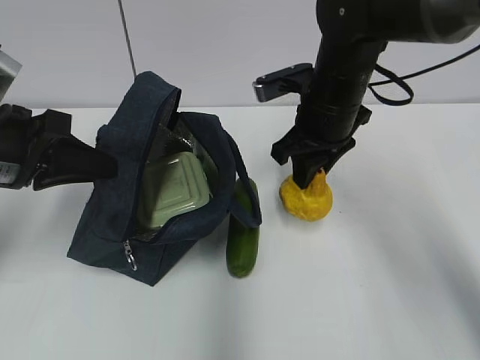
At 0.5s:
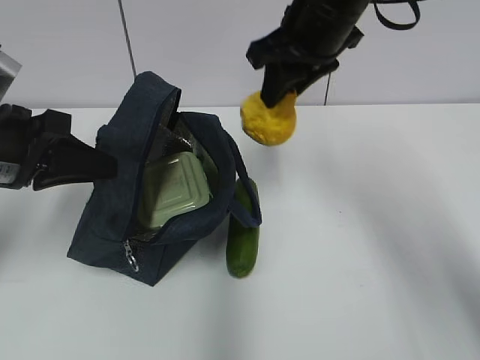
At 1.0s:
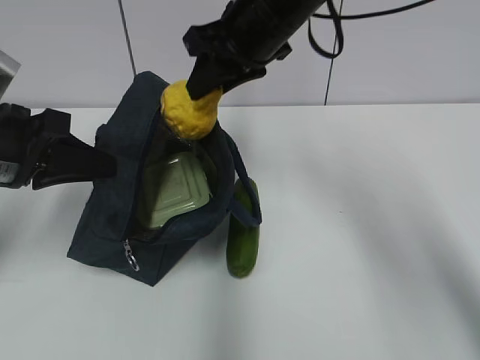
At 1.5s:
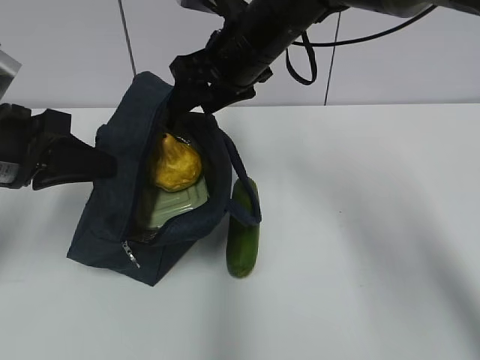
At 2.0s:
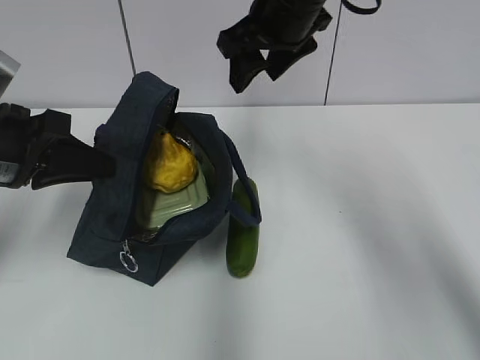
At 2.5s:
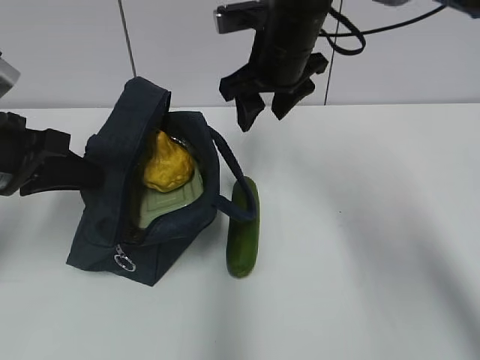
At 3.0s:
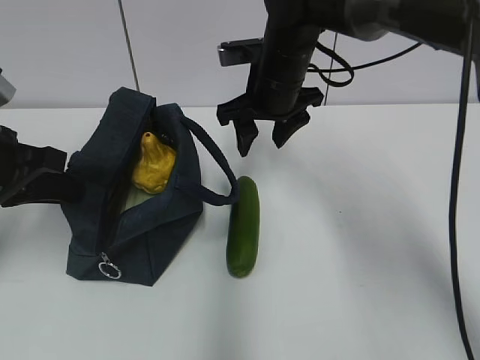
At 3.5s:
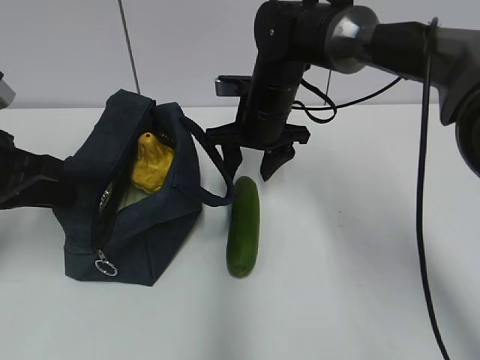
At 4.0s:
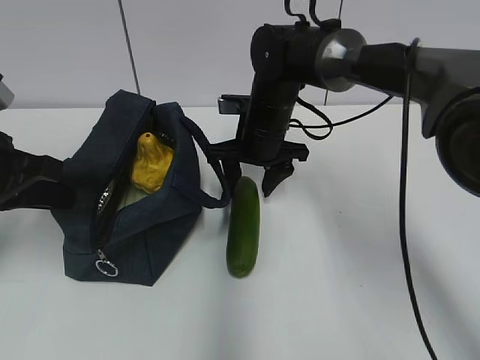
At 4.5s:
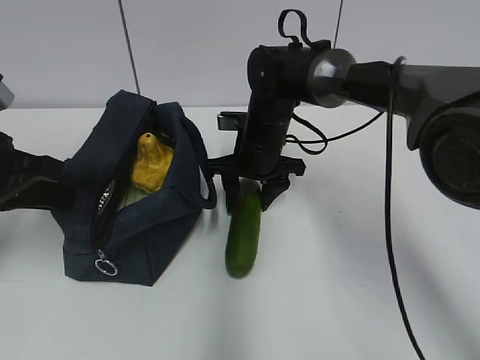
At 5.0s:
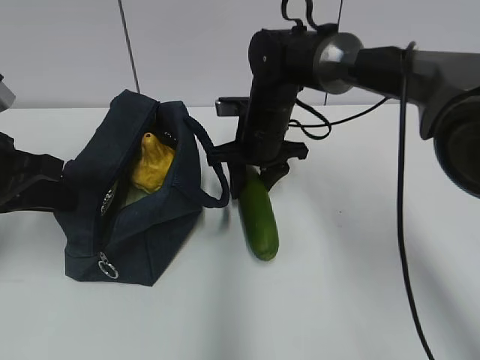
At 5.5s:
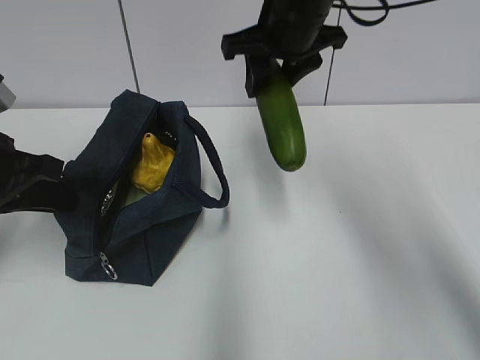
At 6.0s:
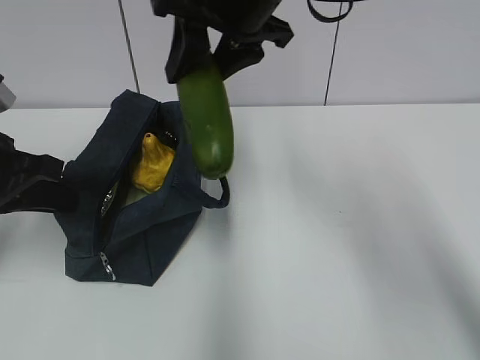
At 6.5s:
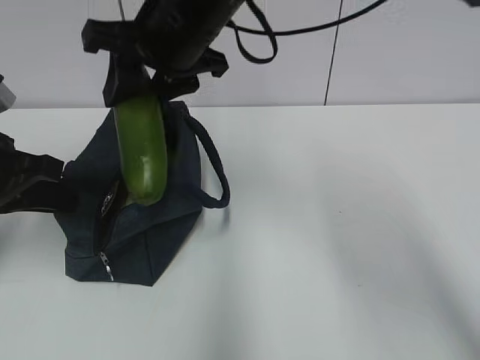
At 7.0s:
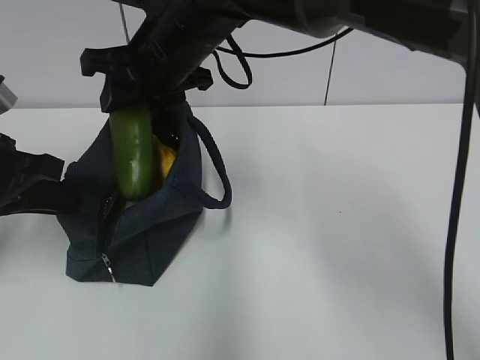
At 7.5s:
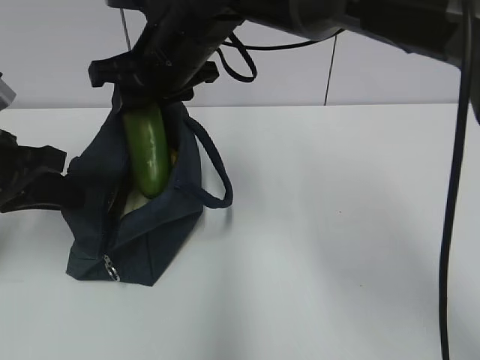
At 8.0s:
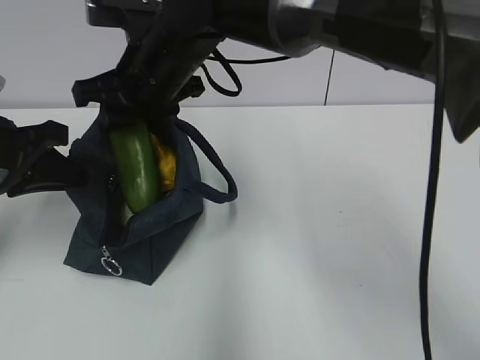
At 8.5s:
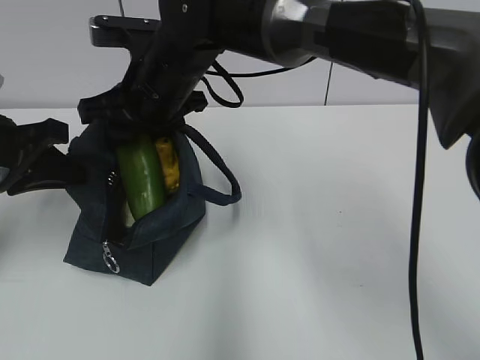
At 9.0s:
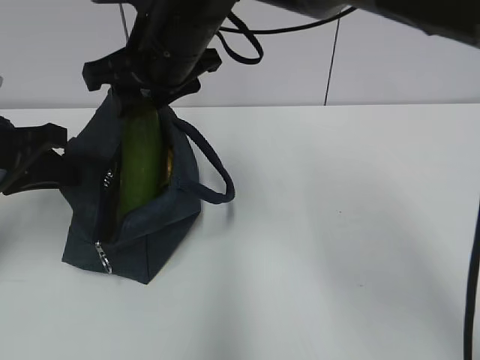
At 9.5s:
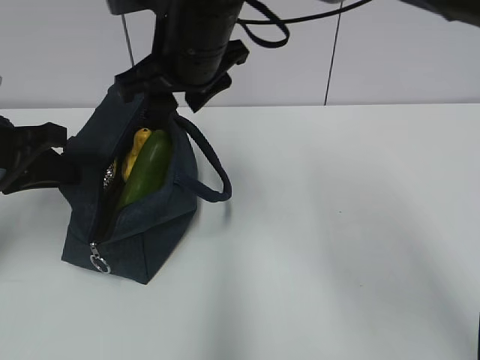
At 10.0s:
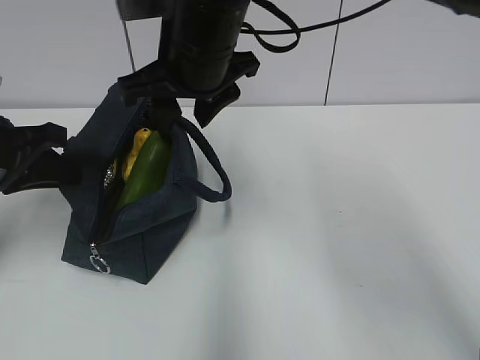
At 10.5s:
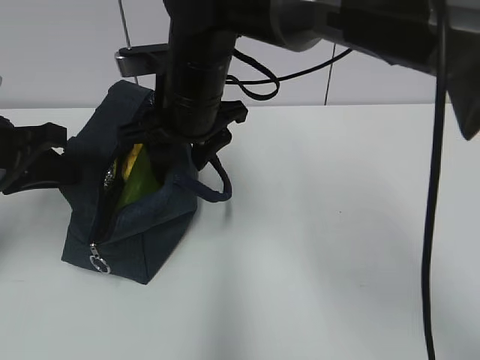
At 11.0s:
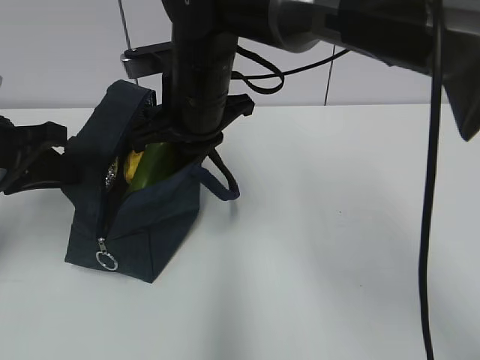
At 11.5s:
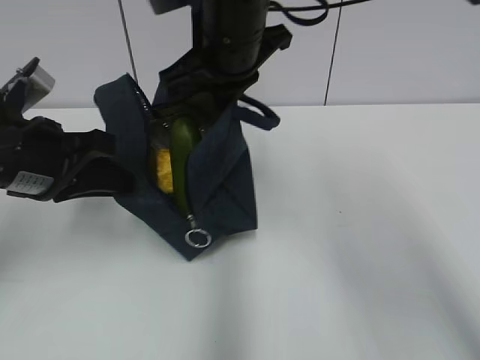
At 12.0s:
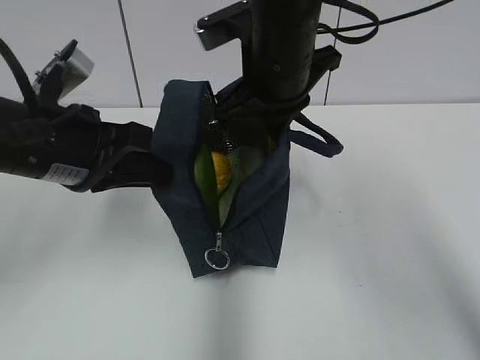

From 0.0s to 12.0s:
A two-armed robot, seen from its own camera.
Step, from 0.0s to 1.5s: Place it into the bag with your right hand.
Step, from 2.0s to 4.5s: Grab the cucumber with your right hand.
Step, from 5.0s to 9.0s: Place it into the bag with your right hand.
Step, from 9.5s to 10.5s: Grab the lunch bag with your right hand.
From 0.0s to 2.0s: The right gripper swings up and down, some 10 cm each way, with 2 reversals, and opens up.
From 2.0s to 4.0s: The right gripper moves downward, roughly 15 cm.
From 4.0s to 6.0s: The right gripper moves upward, some 20 cm.
From 6.0s to 8.0s: The right gripper moves to the left and downward, some 10 cm.
From 8.0s to 10.0s: The right gripper changes place by approximately 5 cm.
From 10.0s to 12.0s: Both grippers travel together to the right, about 10 cm. The right gripper closes its fingers.

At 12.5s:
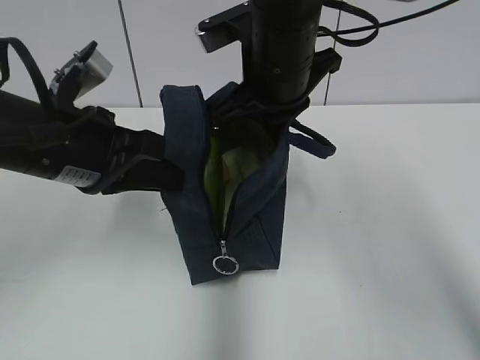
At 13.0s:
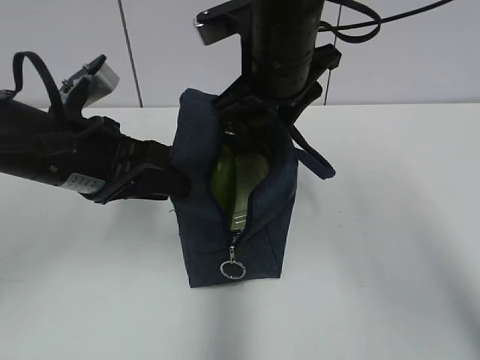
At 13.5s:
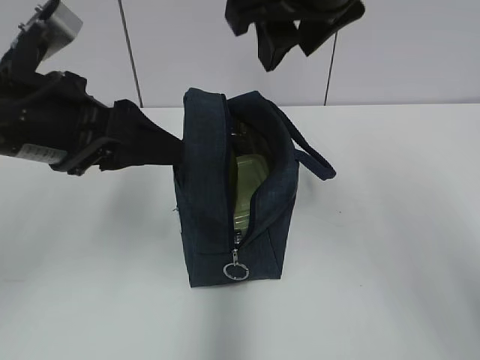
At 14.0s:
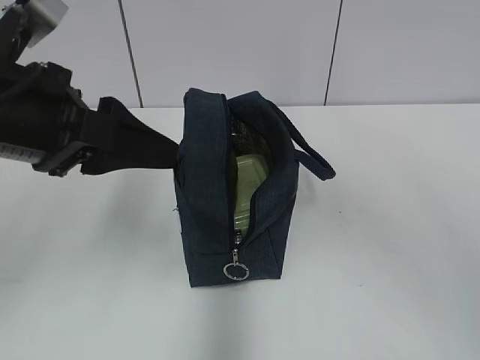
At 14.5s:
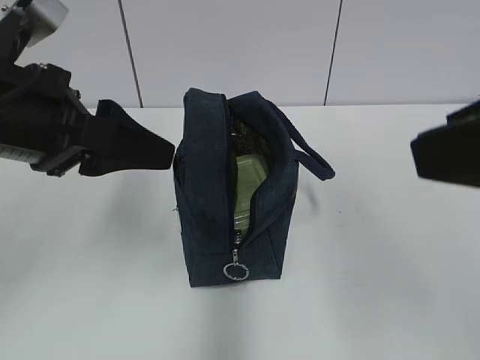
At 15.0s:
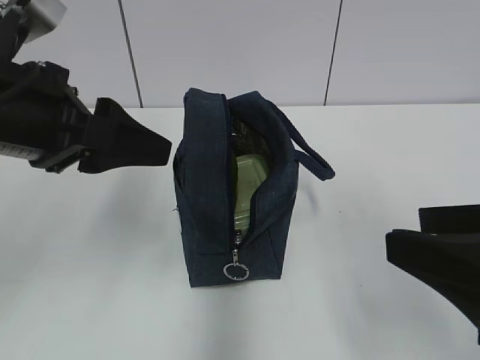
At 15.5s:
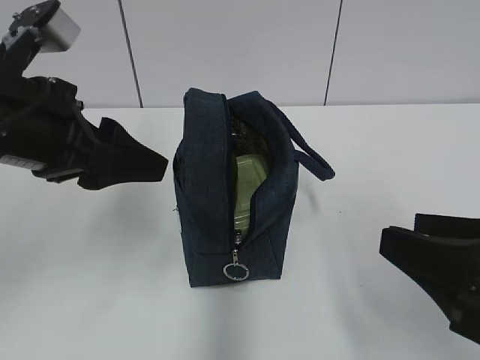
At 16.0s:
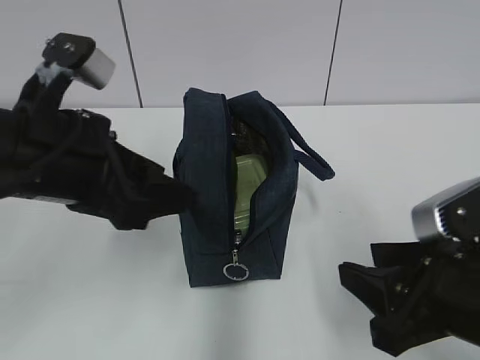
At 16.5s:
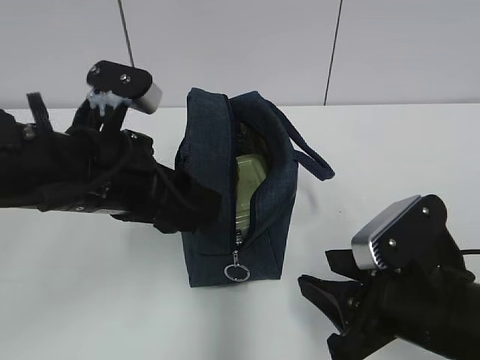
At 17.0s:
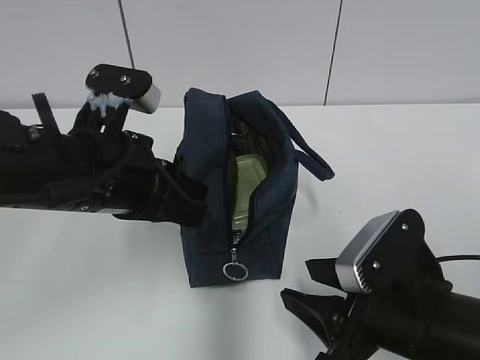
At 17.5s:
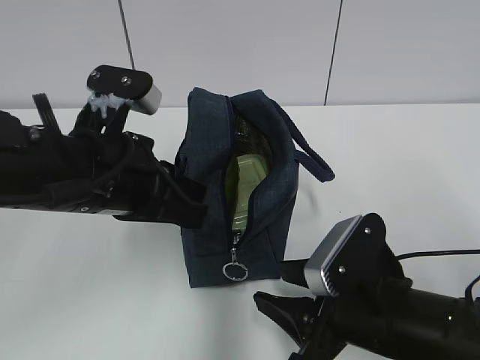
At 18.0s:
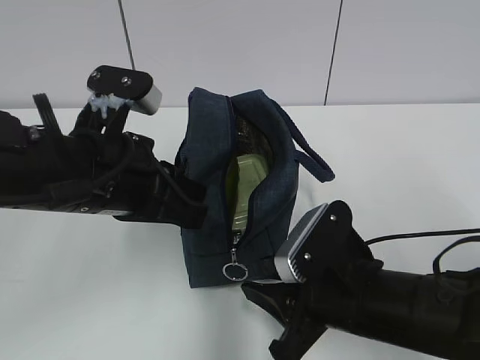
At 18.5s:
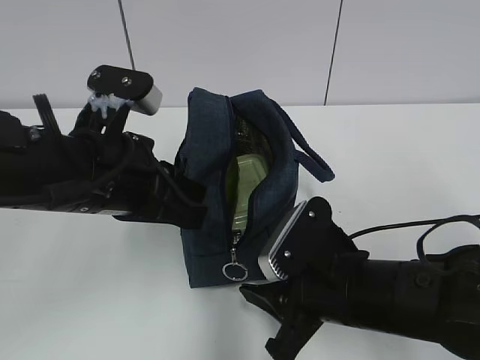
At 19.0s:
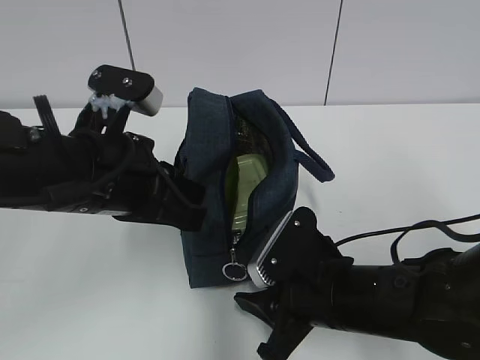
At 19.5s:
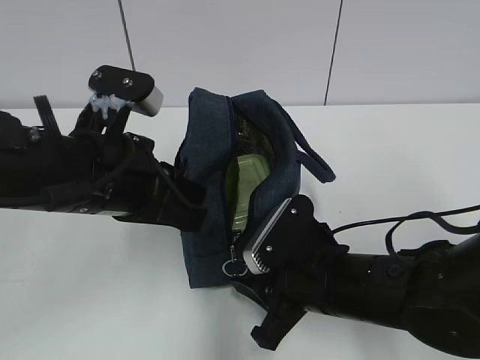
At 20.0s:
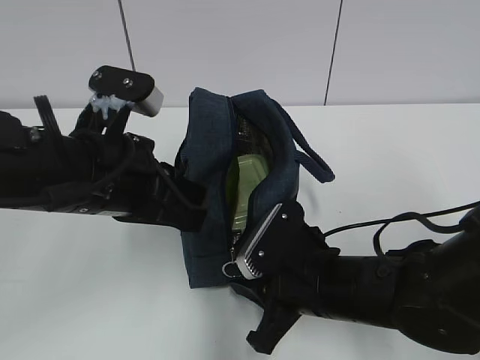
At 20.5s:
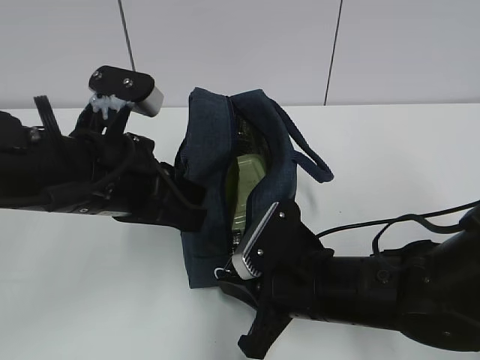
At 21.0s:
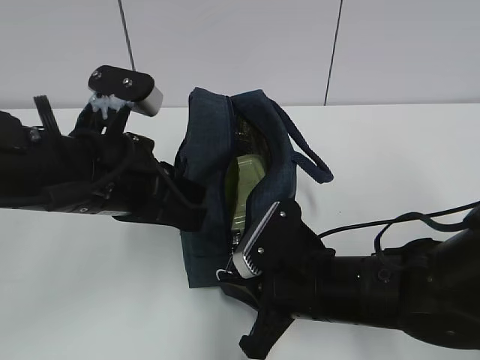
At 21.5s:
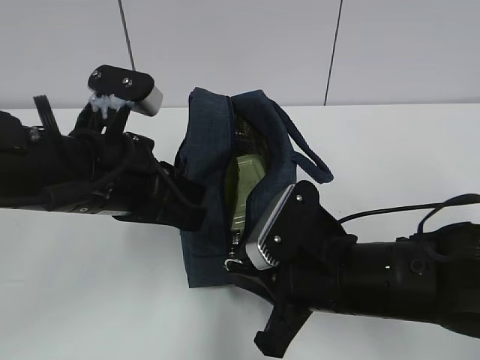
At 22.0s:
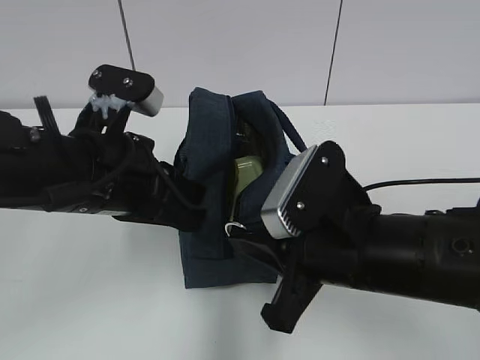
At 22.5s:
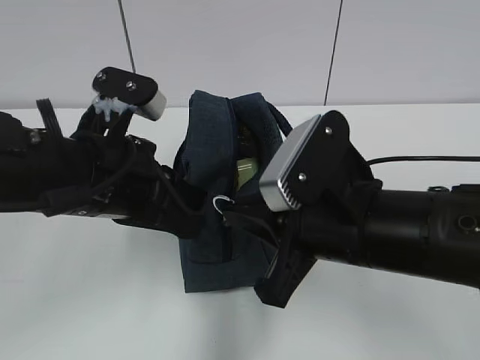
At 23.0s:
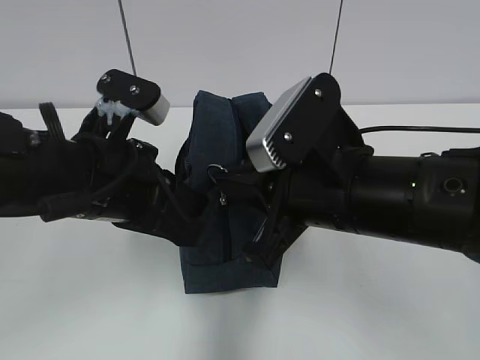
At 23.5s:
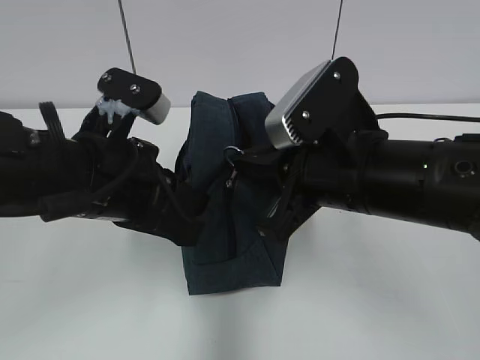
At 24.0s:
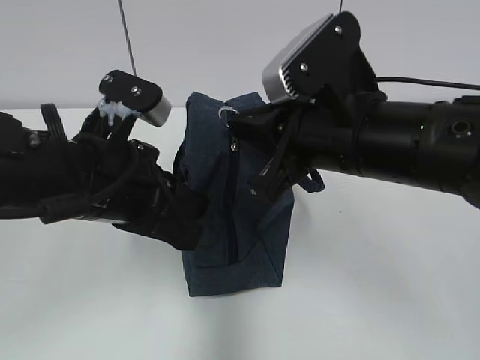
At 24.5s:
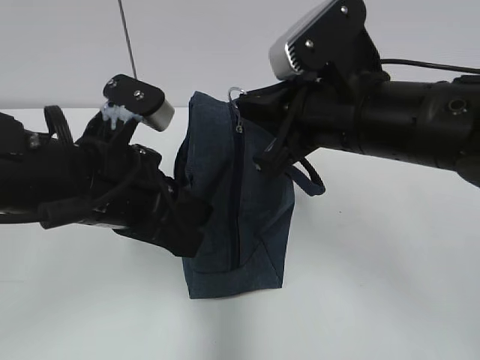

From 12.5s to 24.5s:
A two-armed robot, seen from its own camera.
Step, from 13.0s to 17.0s: Grab the lunch bag with your left hand.
From 12.5s to 14.5s: The left gripper travels upward by about 5 cm, and opens its fingers. The right gripper goes approximately 30 cm backward and to the right, and opens.
From 14.5s to 16.5s: The right gripper shifts about 20 cm downward; the left gripper moves downward and to the right, about 10 cm.
From 16.5s to 18.5s: The left gripper closes its fingers. The right gripper shifts by about 5 cm.
From 18.5s to 20.5s: The right gripper closes its fingers.
From 20.5s to 22.5s: The right gripper moves upward, approximately 10 cm.
From 22.5s to 24.5s: The right gripper moves forward and upward, roughly 10 cm.

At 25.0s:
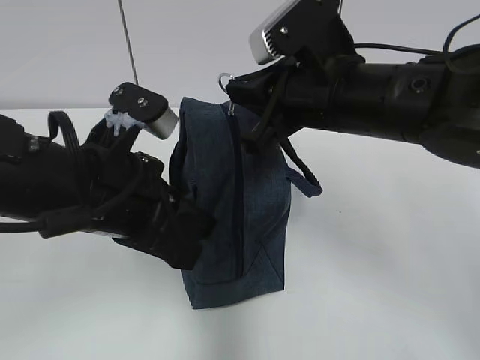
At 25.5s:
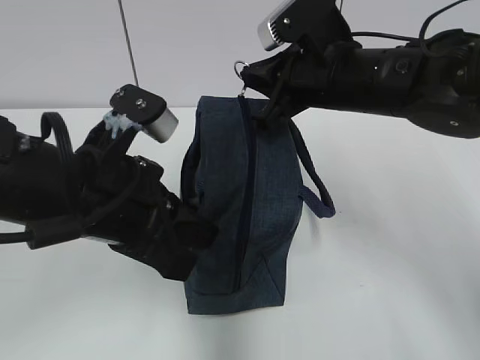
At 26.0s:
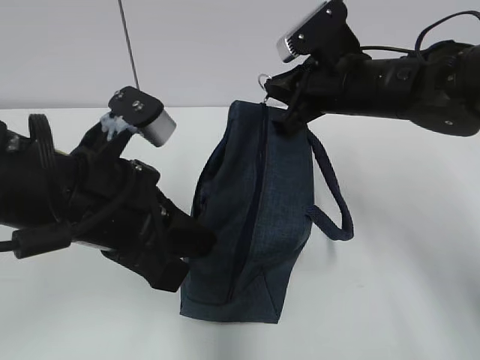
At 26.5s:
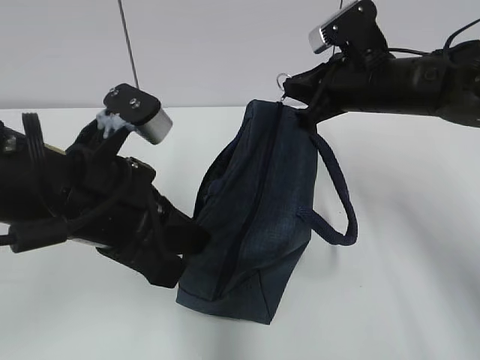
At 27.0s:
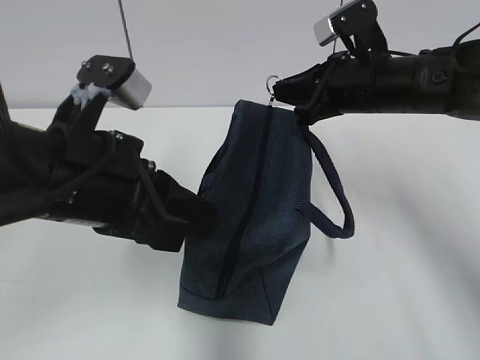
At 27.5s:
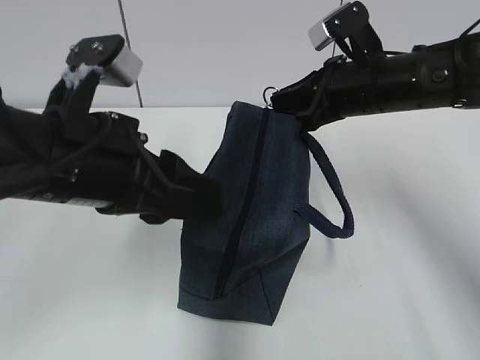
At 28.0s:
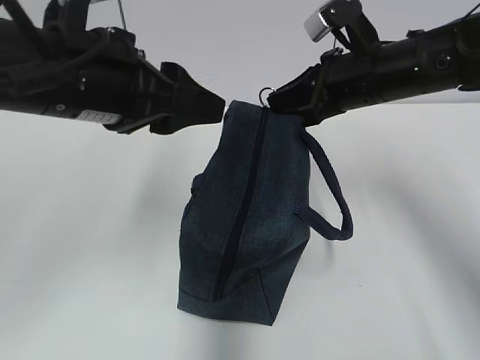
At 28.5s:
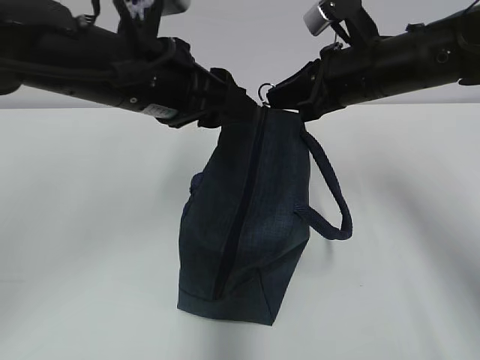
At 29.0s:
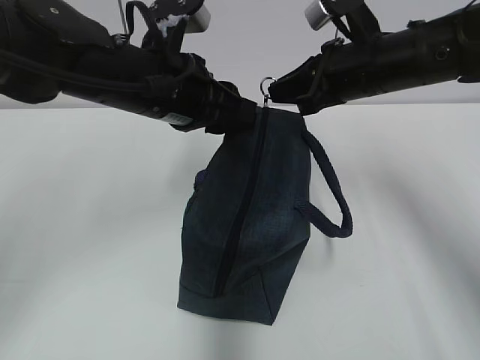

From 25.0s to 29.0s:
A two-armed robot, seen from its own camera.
From 25.0s to 27.0s: The right gripper goes approximately 10 cm forward and to the right. Meanwhile the left gripper opens up.
From 27.0s to 29.0s: The left gripper heads forward, covering approximately 15 cm.
